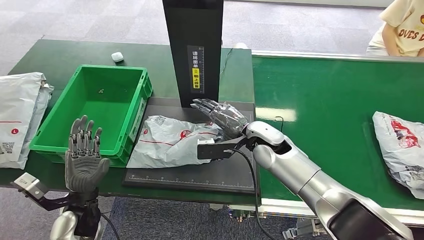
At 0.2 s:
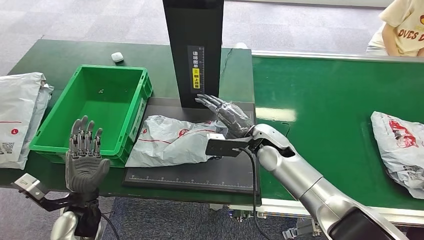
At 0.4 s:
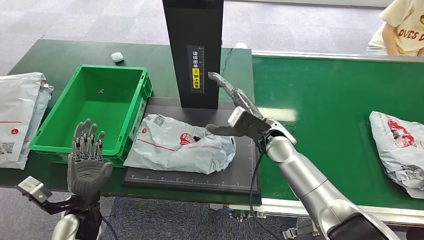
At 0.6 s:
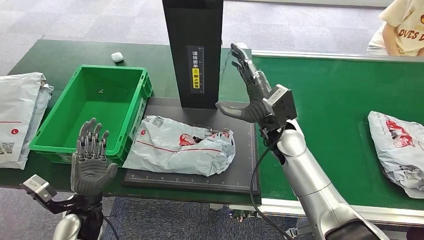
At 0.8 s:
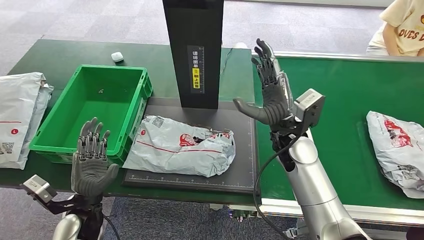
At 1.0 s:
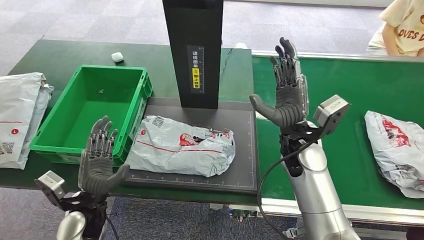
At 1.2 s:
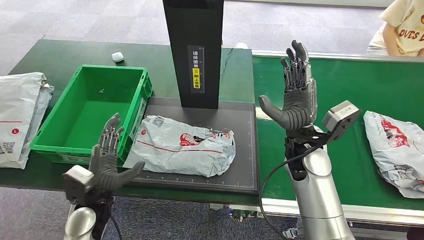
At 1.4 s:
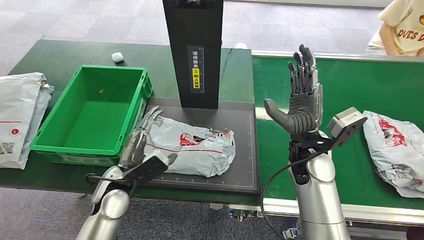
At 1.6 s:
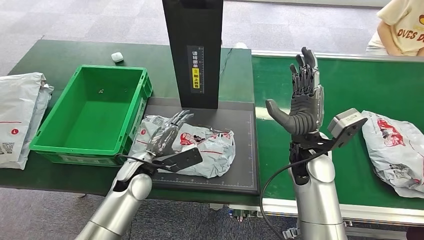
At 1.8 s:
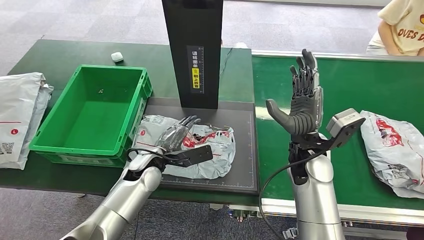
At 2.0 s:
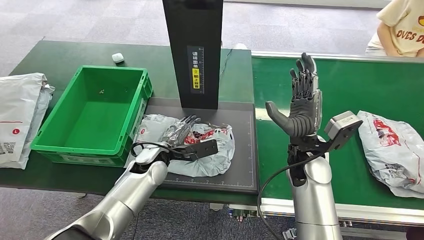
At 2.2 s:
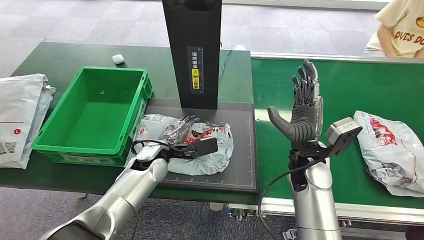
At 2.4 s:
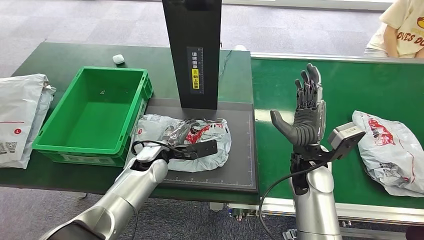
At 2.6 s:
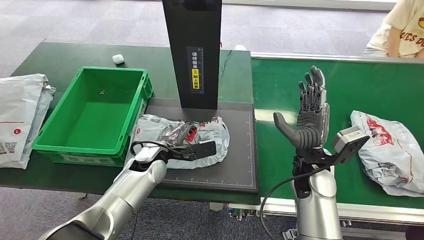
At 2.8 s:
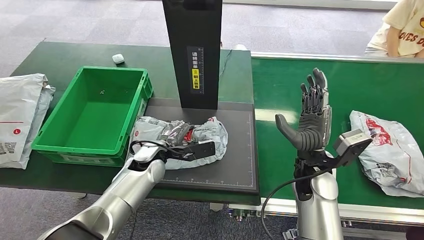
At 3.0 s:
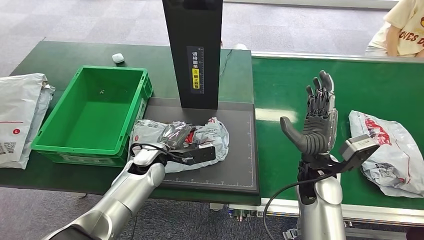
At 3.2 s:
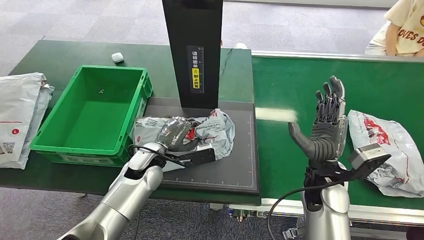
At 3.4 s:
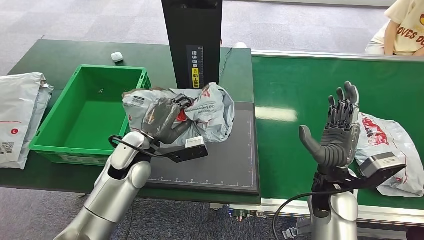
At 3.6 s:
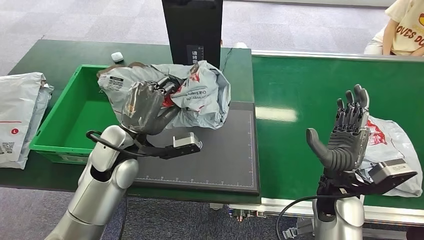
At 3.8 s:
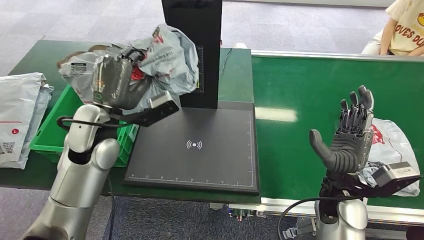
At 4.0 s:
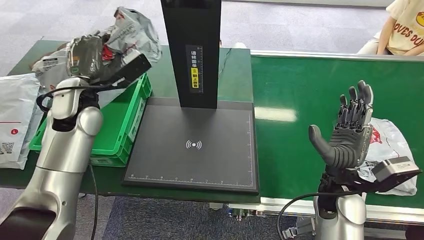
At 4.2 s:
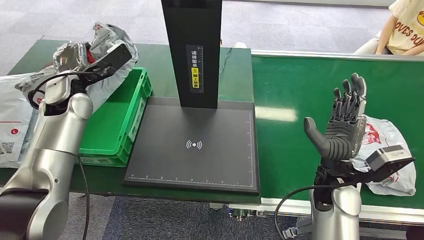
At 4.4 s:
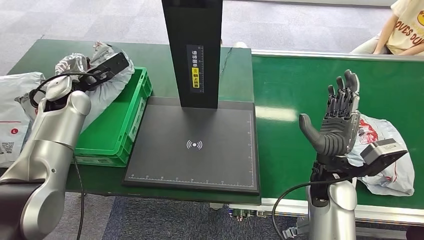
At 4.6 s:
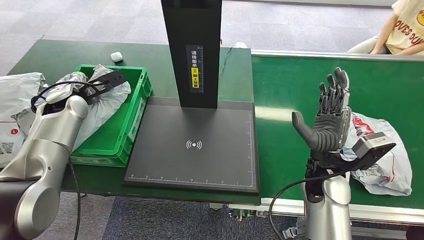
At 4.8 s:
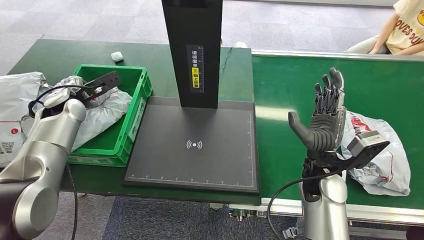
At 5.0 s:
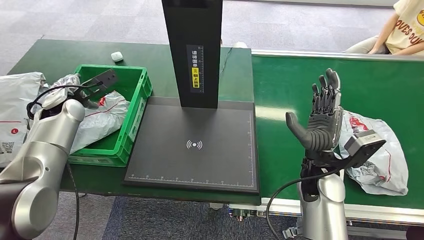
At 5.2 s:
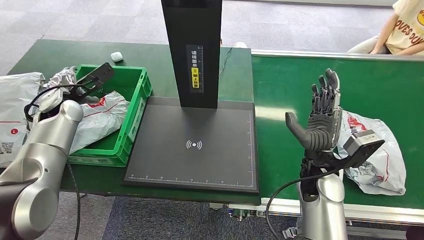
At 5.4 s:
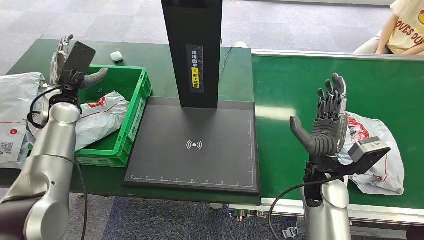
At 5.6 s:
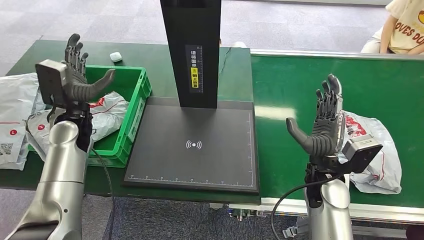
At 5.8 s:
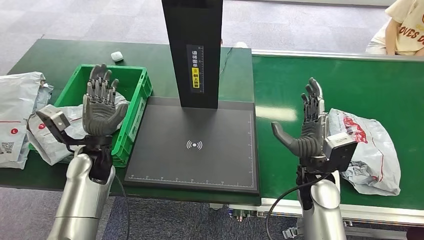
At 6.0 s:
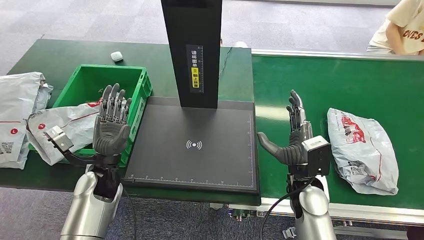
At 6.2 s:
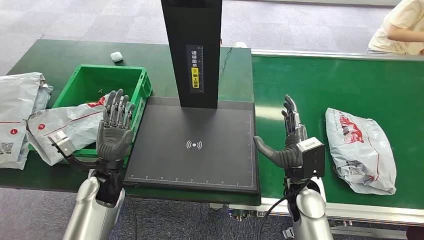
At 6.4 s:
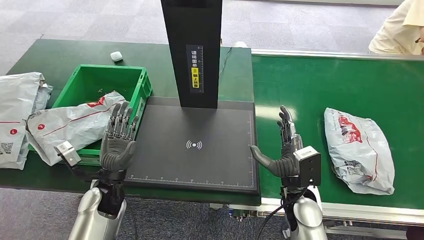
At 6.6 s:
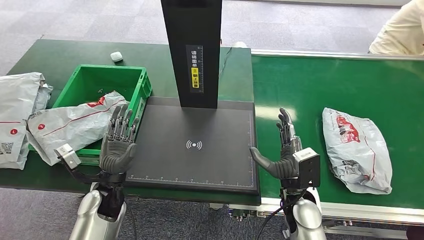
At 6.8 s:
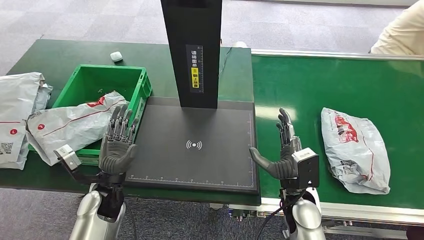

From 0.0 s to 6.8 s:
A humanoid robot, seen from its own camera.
Step, from 0.8 s to 3.6 s: Pick up the package from the inbound machine.
Step, from 3.8 s to 6.8 s: Place the package into the parcel locker.
